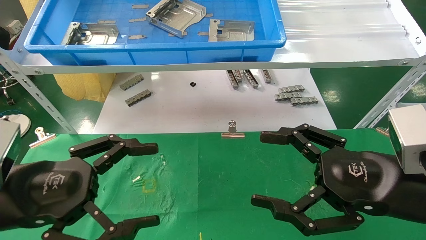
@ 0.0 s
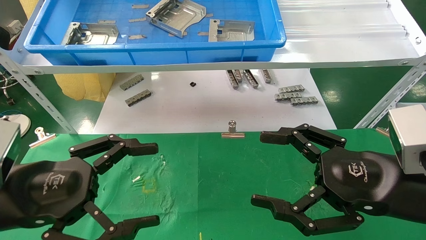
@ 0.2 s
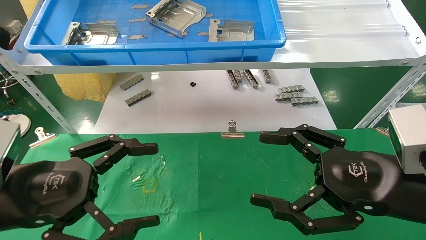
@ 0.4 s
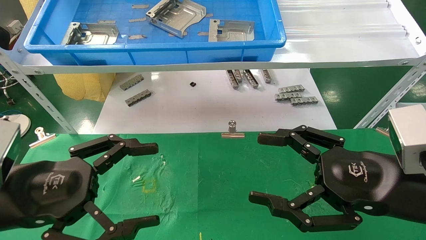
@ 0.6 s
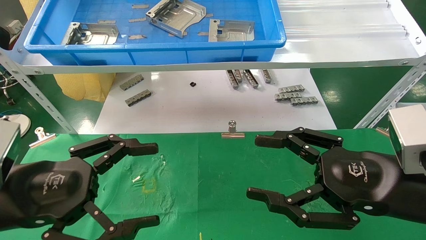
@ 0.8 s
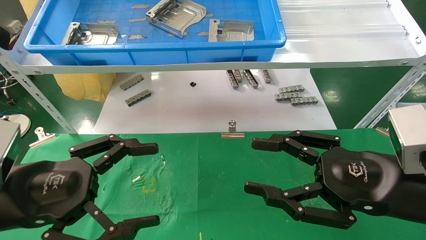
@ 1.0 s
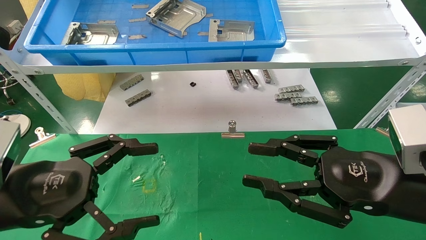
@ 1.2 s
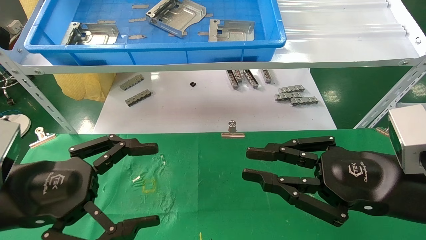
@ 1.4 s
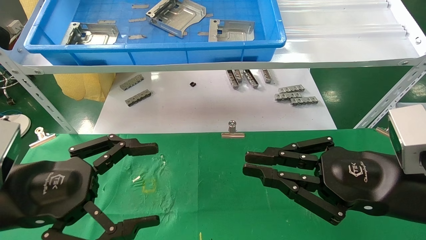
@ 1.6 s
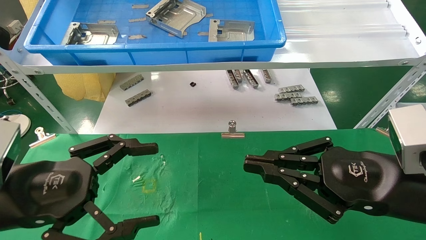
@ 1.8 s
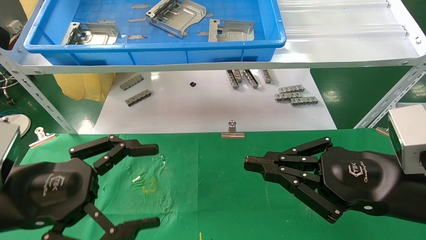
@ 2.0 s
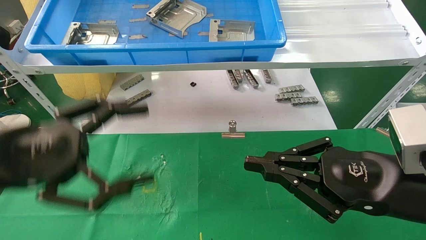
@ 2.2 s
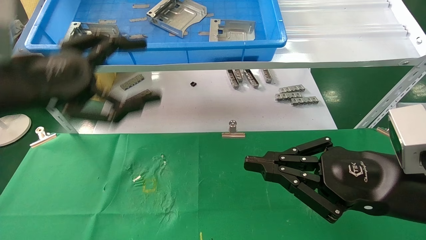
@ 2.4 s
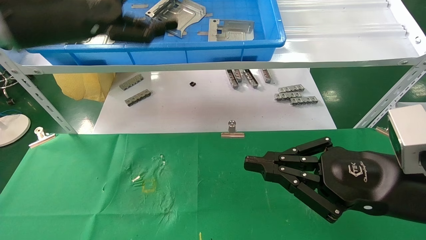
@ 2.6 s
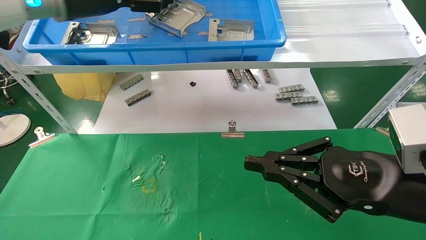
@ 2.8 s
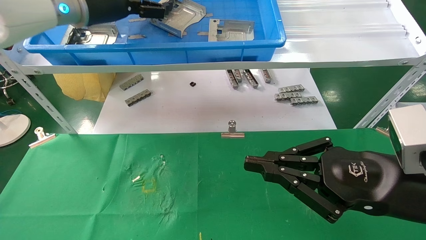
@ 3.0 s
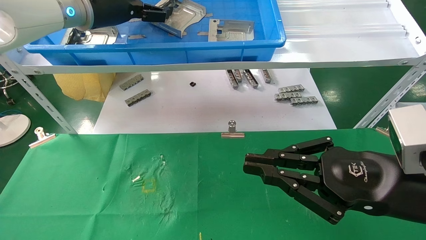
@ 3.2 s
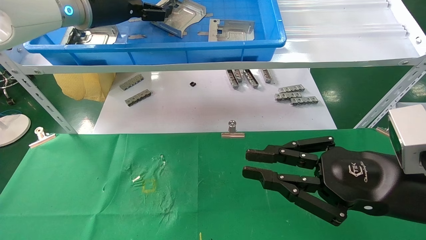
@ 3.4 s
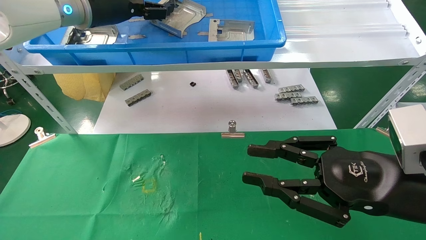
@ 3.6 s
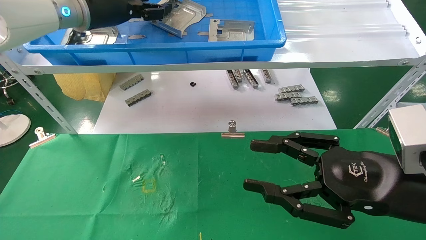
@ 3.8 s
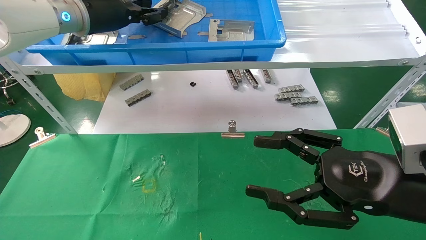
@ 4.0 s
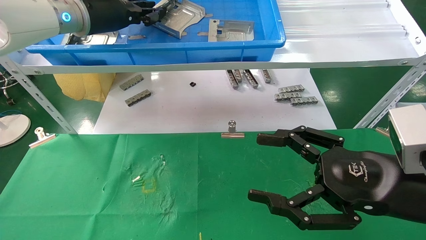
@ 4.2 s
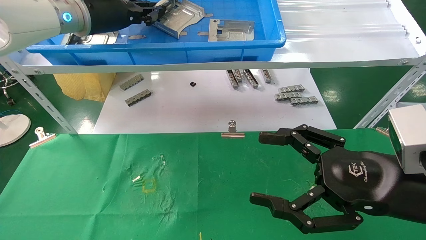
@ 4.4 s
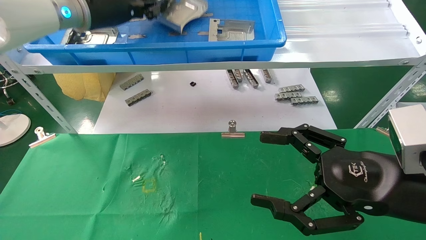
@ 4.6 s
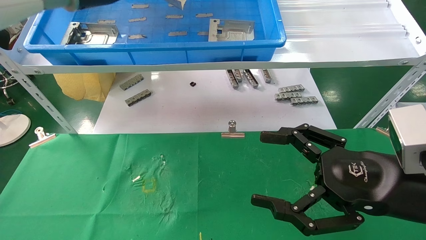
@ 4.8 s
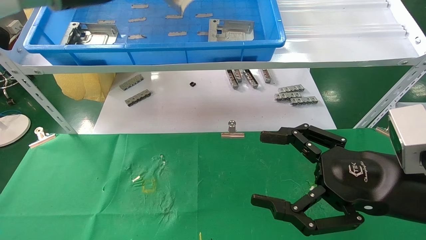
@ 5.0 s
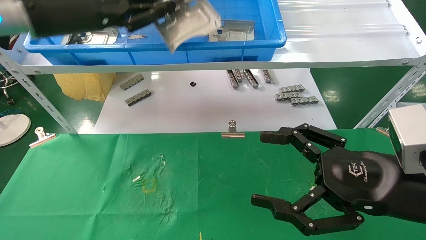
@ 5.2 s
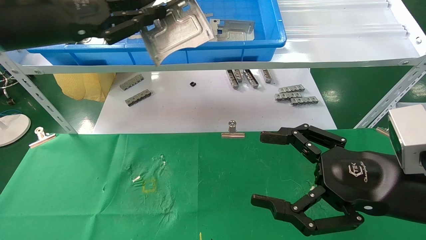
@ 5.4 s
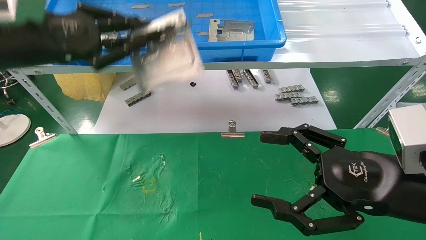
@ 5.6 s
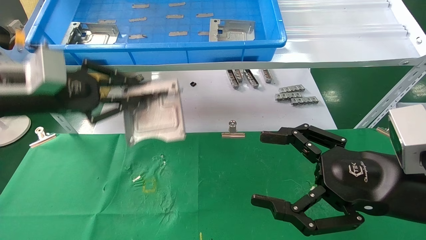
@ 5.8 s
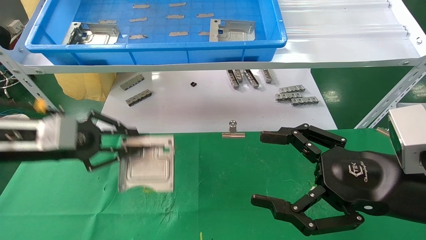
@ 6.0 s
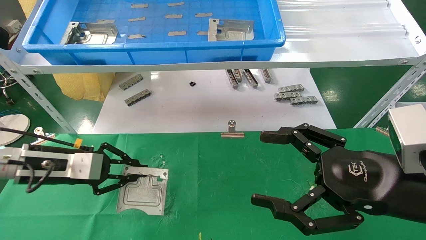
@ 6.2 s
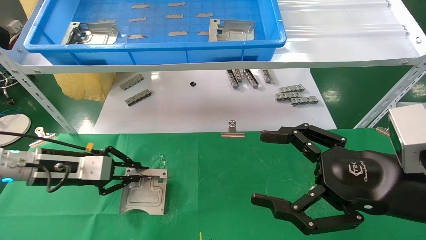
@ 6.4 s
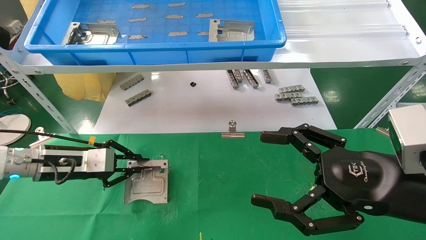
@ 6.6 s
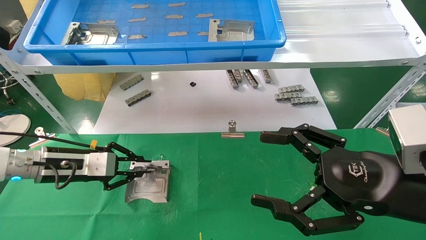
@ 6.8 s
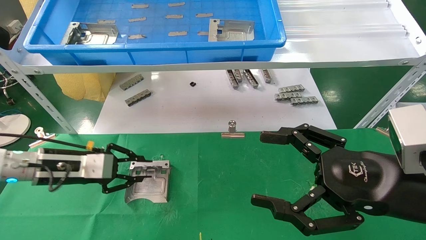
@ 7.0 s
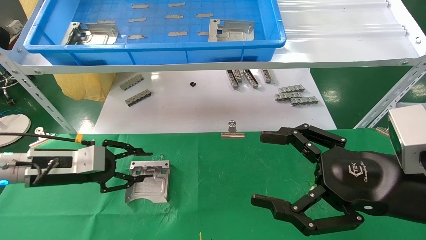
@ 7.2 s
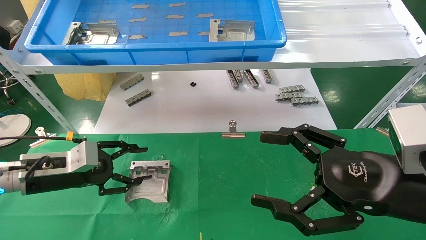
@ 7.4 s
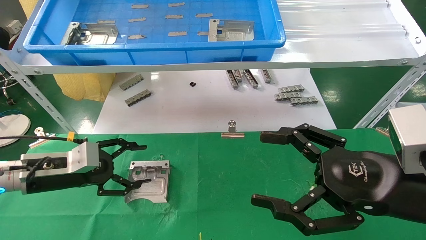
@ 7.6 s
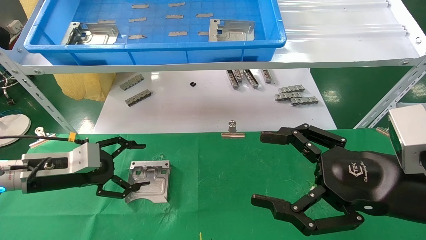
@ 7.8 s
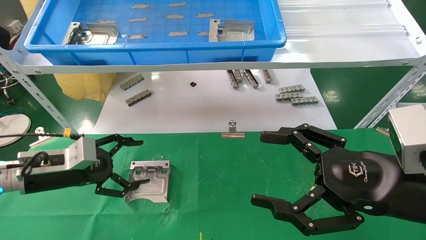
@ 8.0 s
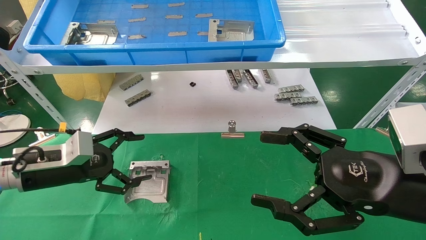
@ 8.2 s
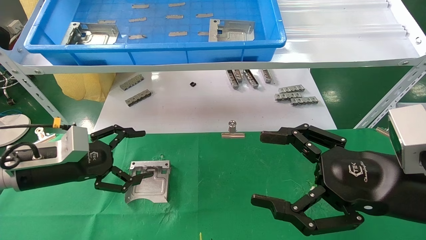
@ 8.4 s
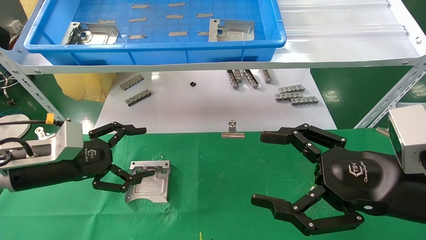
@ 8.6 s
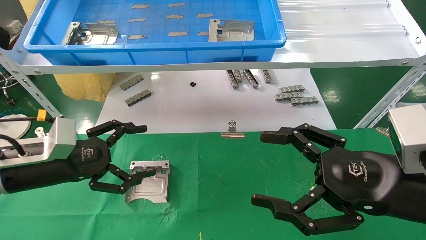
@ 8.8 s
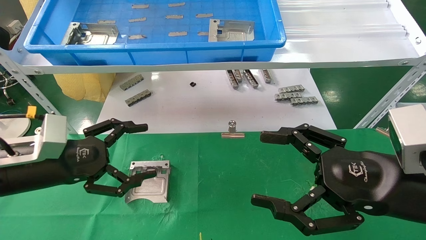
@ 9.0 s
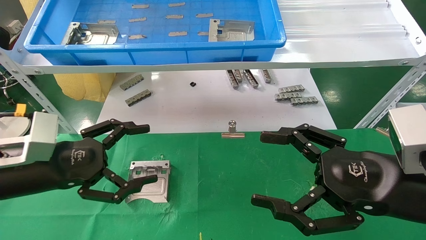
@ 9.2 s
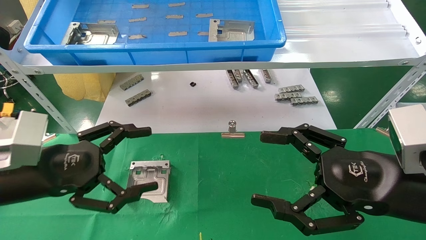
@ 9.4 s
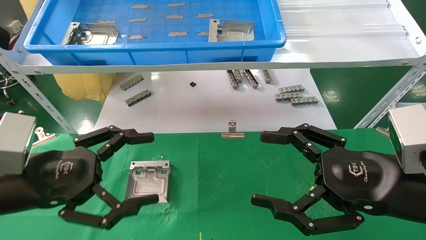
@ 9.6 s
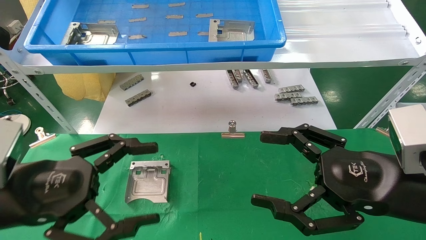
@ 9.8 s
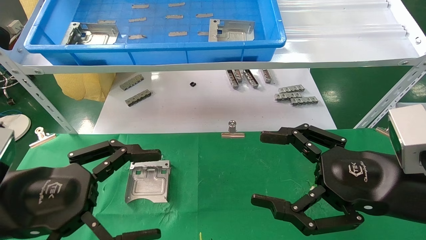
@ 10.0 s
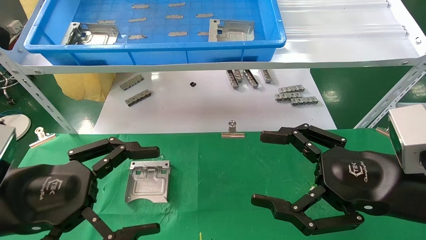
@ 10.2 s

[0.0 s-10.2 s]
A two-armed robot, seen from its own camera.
Task of the whole recording: use the mechanical arm to pick up the parts and place them on the table.
Step, 2.2 to 4.4 s: Pick up the hard drive bracket from the feeding area.
Step, 4.6 to 7.4 s: Place the hard drive bracket into the box.
0.0 to 1.4 s: The right gripper closes.
1.4 to 3.0 s: The right gripper closes up. Meanwhile the left gripper heads forward and upward, covering about 35 cm.
3.0 to 4.4 s: The right gripper opens, while the left gripper closes up.
4.4 to 5.8 s: The left gripper travels downward, backward and to the left by some 20 cm.
5.8 to 7.2 s: The left gripper is displaced downward by approximately 15 cm.
7.2 to 8.8 s: The left gripper shifts about 5 cm backward, and opens its fingers.
8.8 to 10.2 s: The left gripper shifts roughly 10 cm backward.
